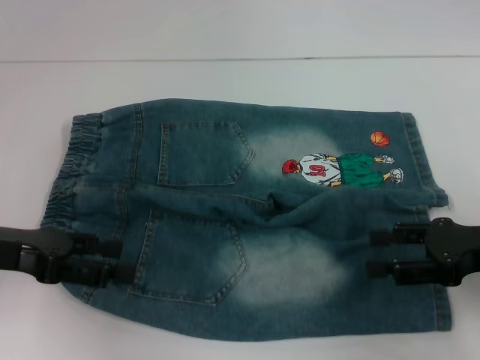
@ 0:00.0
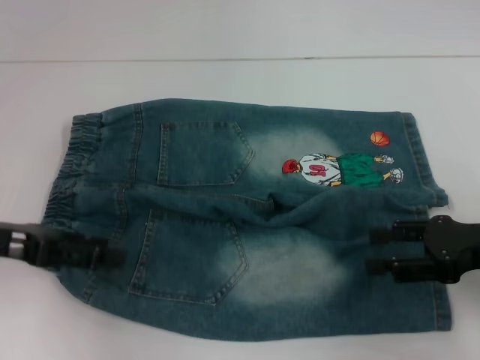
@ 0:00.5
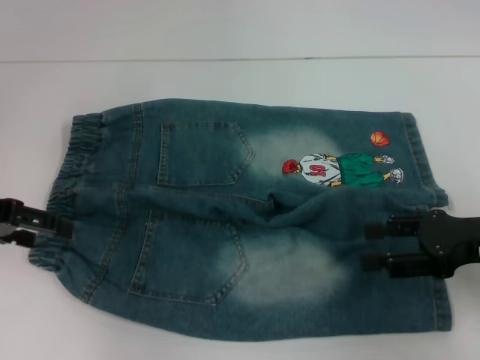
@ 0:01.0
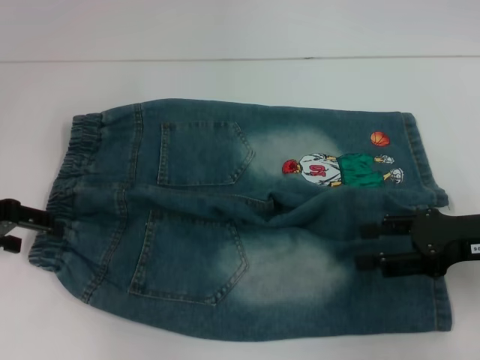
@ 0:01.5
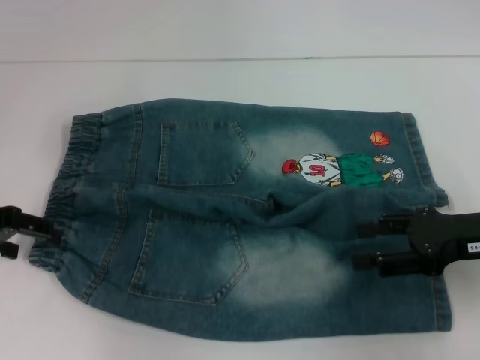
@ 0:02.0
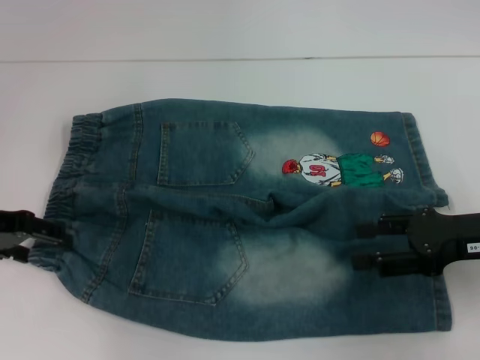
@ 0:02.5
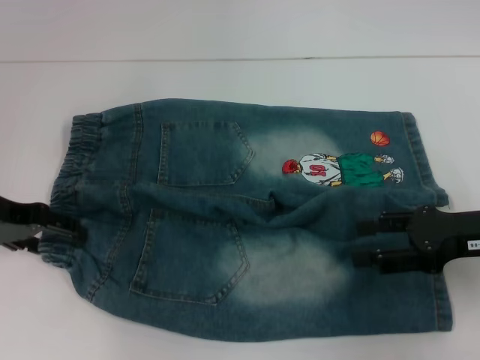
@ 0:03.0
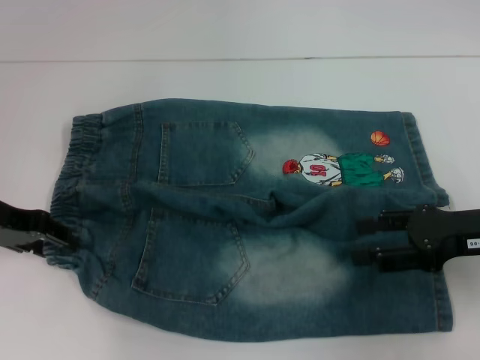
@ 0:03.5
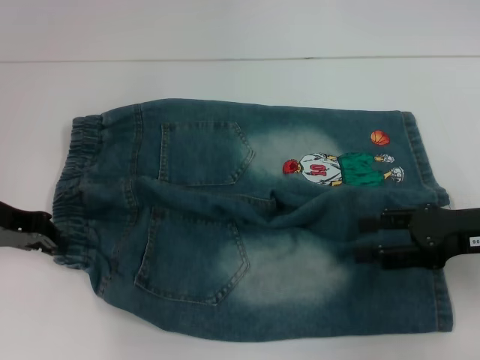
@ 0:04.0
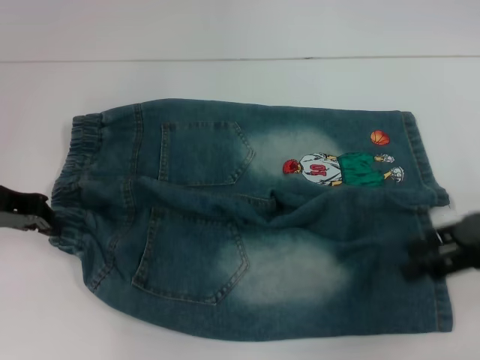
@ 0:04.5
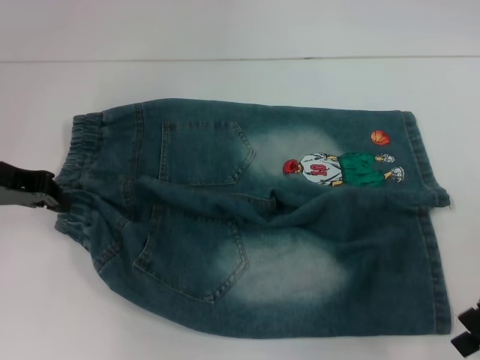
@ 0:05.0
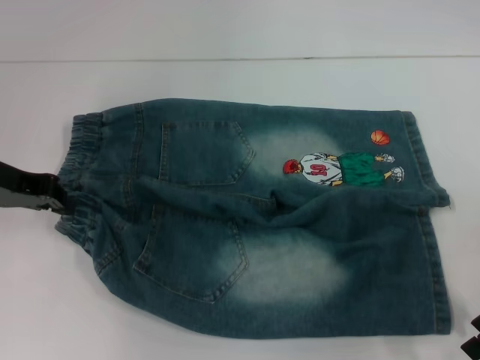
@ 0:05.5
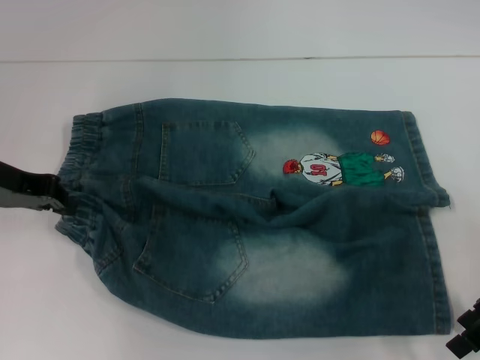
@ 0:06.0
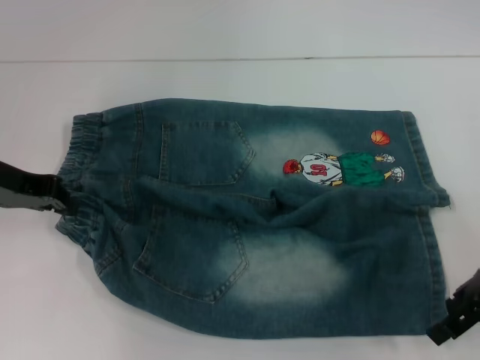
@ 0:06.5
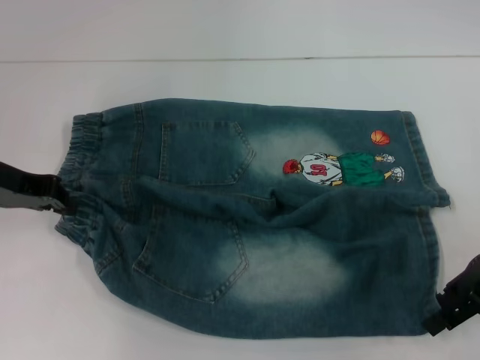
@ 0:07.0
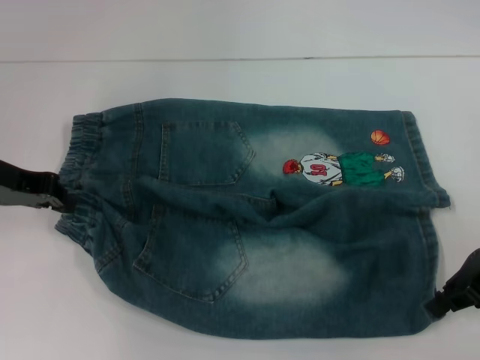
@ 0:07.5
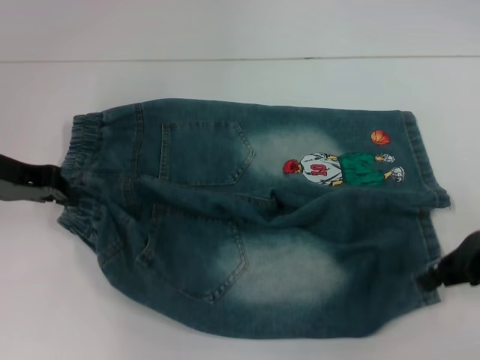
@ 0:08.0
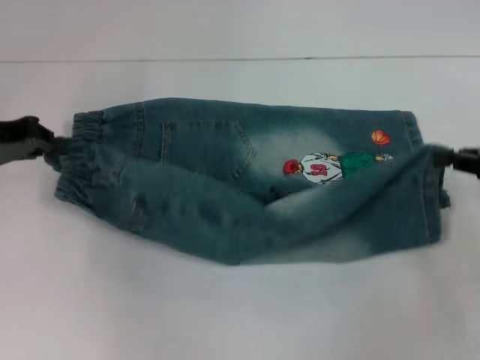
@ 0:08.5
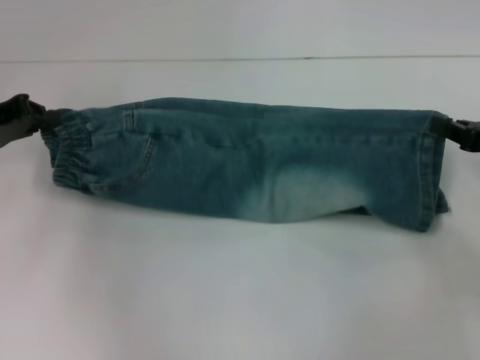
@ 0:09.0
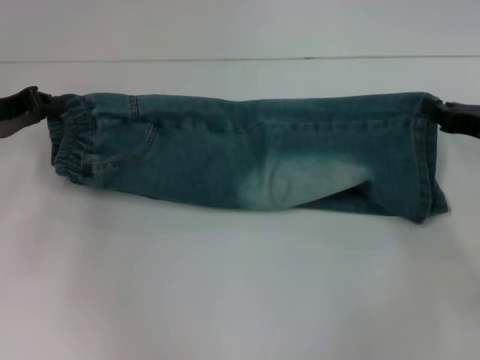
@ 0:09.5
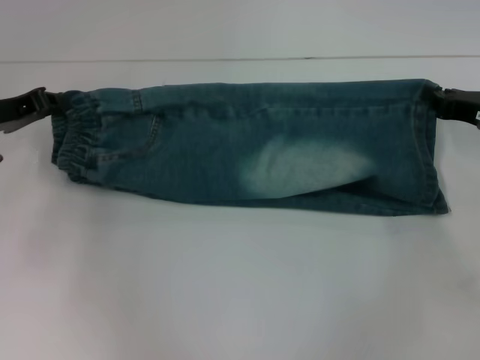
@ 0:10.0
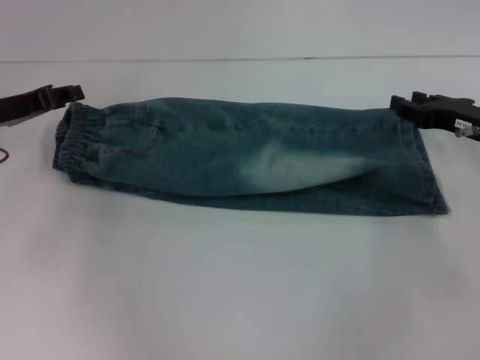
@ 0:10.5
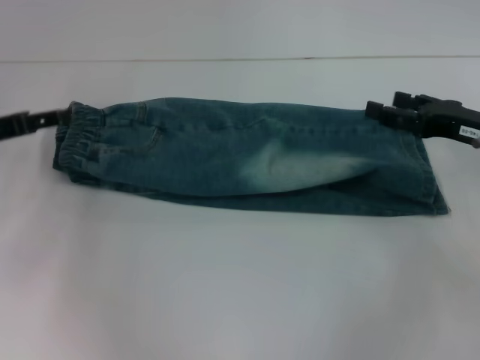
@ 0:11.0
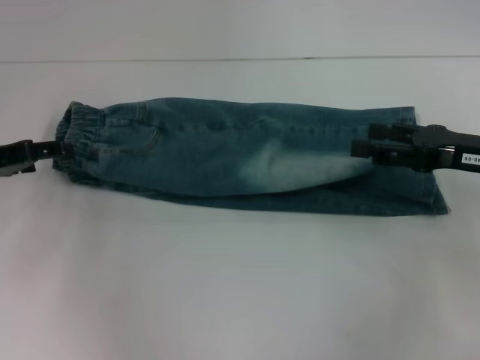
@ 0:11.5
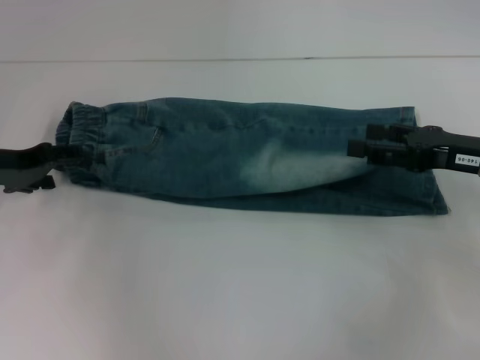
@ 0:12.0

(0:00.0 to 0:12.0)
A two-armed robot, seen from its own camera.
Step, 0:00.0 - 0:04.0: Hold the lower left waistband with your left hand.
Step, 0:04.5 - 0:07.0: Grab the lower right pant leg with your right hand.
Step, 0:07.5 - 0:10.0: Fold upward with your right hand.
0:00.0 - 0:02.0: The left gripper is displaced forward by about 5 cm.
0:02.0 - 0:04.0: The left gripper closes its fingers.
0:06.0 - 0:08.0: The right gripper closes.
0:08.0 - 0:10.0: The right gripper is displaced forward by approximately 5 cm.
0:10.0 - 0:12.0: The right gripper changes place by approximately 5 cm, and opens its fingers; the left gripper opens up.

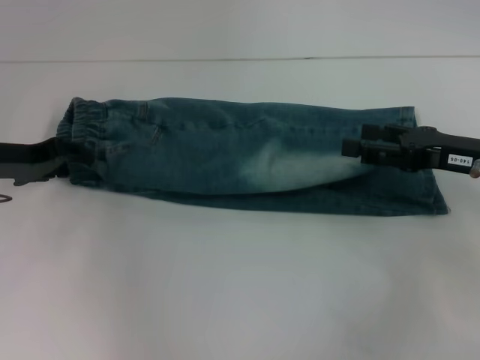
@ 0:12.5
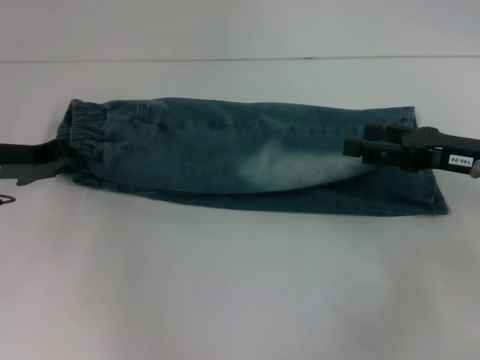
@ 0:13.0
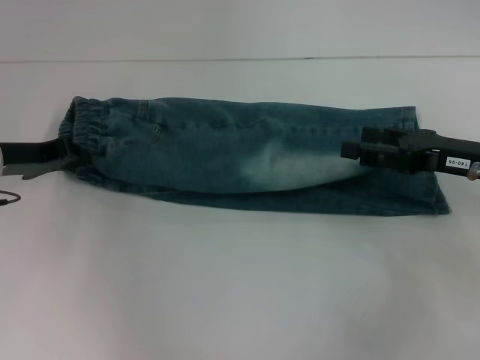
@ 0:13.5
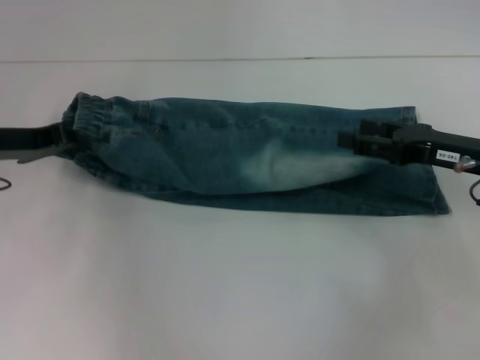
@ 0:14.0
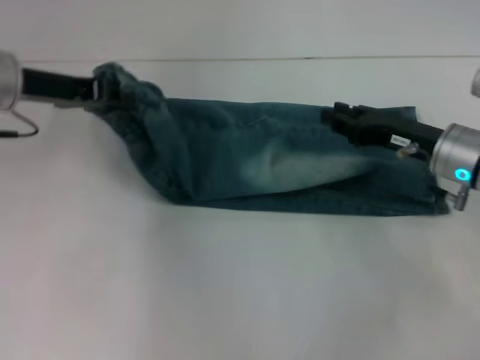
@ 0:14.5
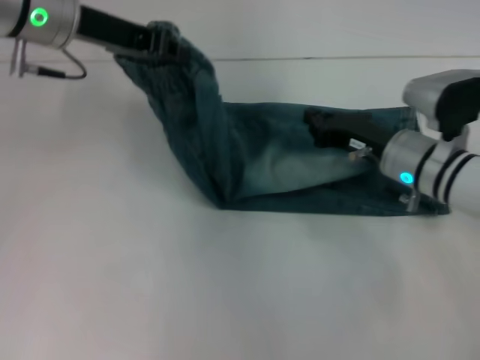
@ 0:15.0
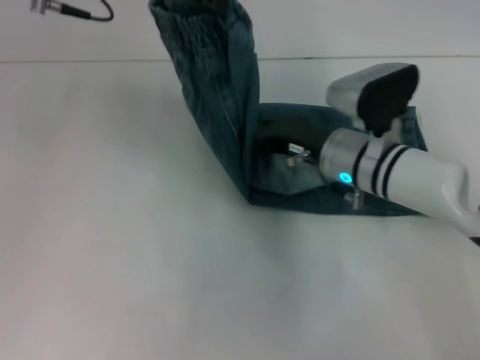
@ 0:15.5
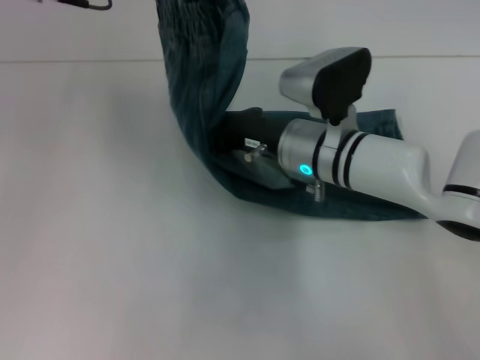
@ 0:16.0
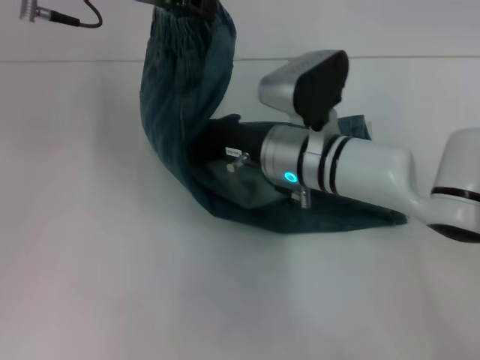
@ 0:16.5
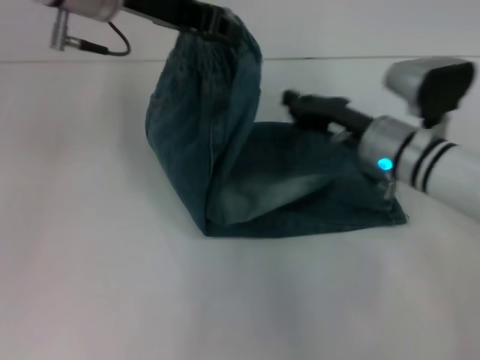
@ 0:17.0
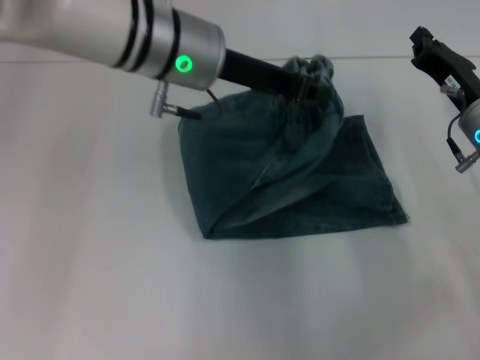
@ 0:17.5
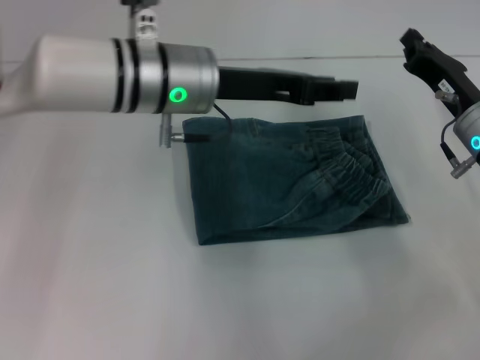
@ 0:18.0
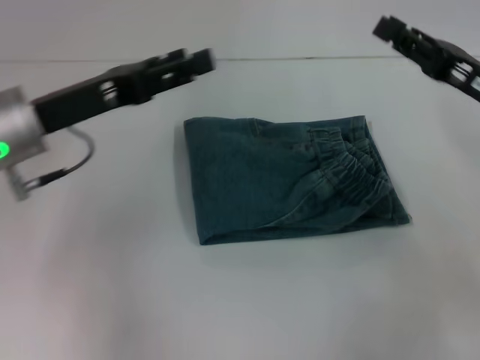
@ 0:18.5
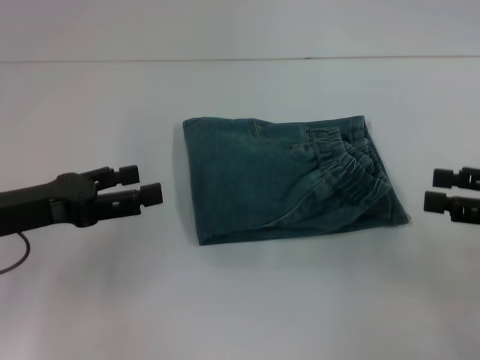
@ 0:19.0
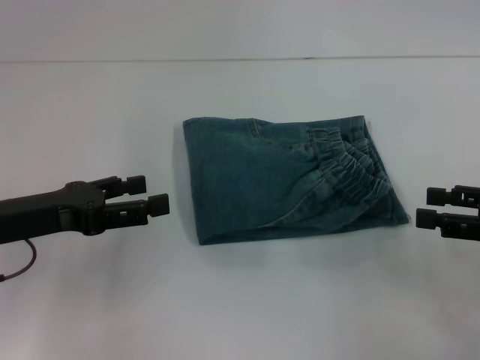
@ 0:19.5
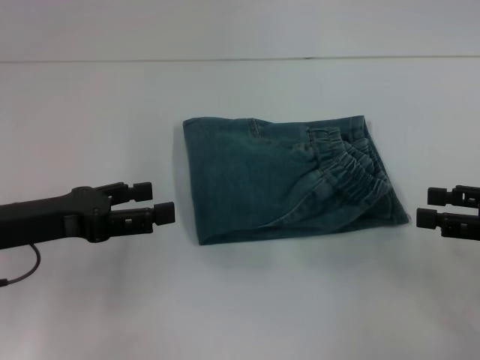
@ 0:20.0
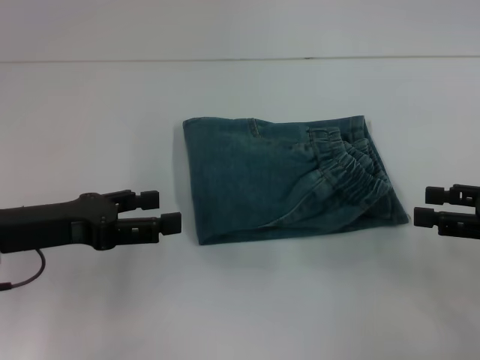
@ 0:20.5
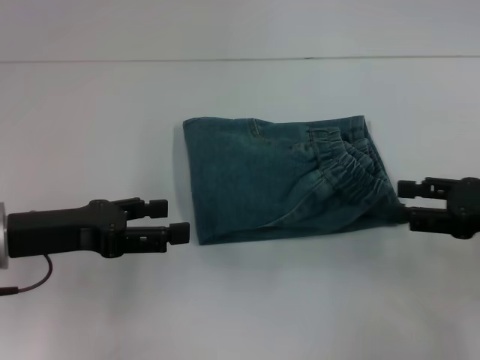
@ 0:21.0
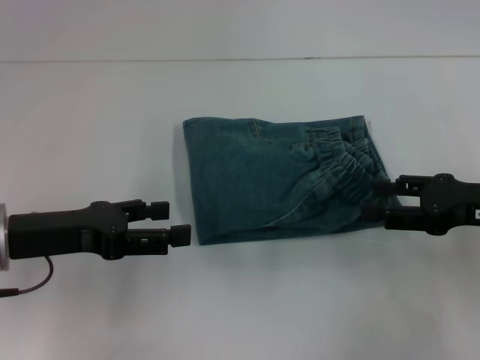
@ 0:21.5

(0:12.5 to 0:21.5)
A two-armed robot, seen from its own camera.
Step, 0:13.5 - 0:16.0: Press the middle of the pants with your right hand.
Step, 0:16.5 - 0:17.5: Fold to the right with your left hand.
0:12.5 - 0:14.5: The right gripper moves roughly 5 cm, while the left gripper is displaced upward by roughly 10 cm, and closes its fingers.
0:14.5 - 0:17.0: The right gripper is displaced to the left by roughly 5 cm, and closes up. The left gripper shifts roughly 15 cm to the right and upward.
0:17.0 - 0:19.5: The right gripper heads to the right and backward, covering some 20 cm, and opens its fingers. The left gripper moves downward, backward and to the left, about 25 cm, and opens.
0:19.5 - 0:21.5: The right gripper changes place by some 5 cm.
